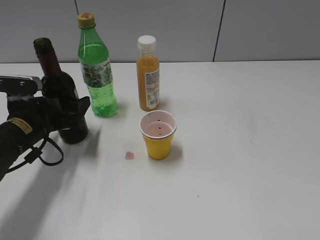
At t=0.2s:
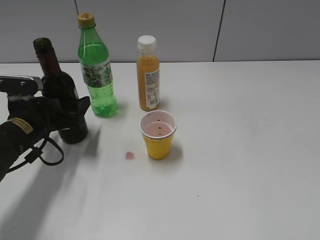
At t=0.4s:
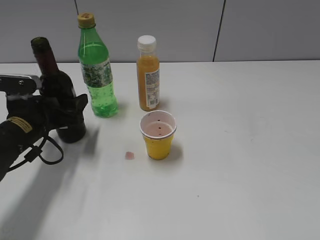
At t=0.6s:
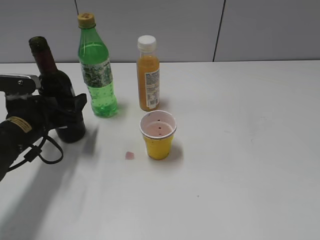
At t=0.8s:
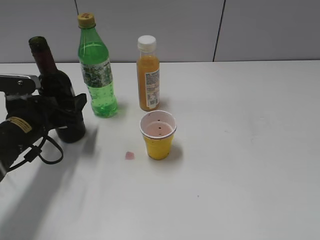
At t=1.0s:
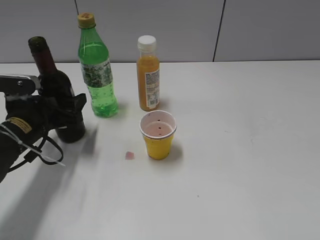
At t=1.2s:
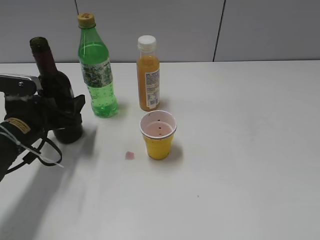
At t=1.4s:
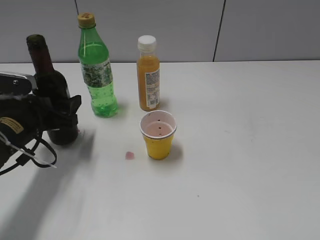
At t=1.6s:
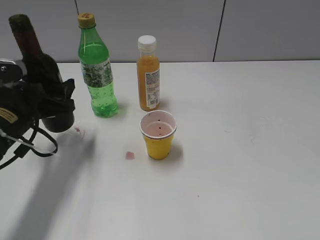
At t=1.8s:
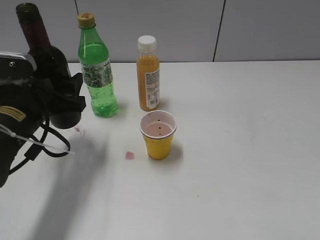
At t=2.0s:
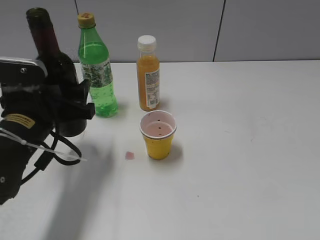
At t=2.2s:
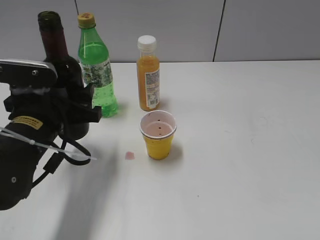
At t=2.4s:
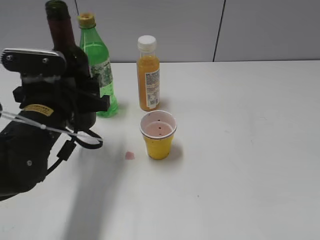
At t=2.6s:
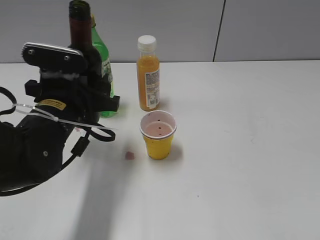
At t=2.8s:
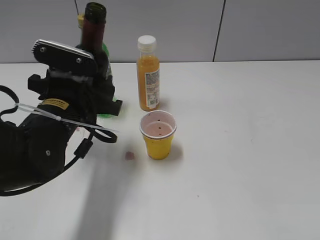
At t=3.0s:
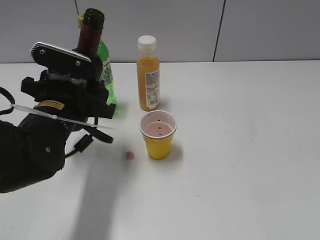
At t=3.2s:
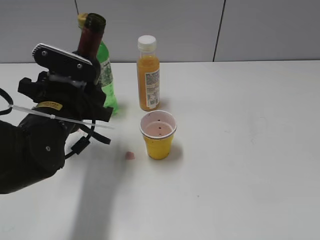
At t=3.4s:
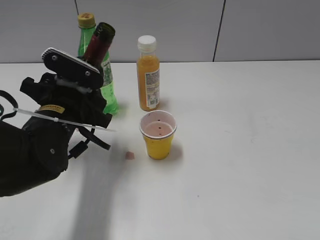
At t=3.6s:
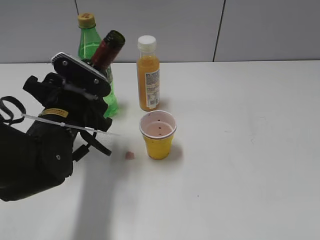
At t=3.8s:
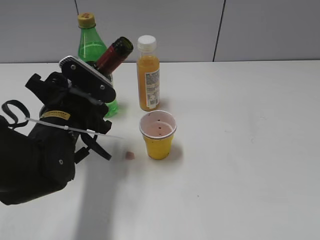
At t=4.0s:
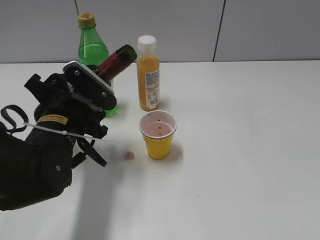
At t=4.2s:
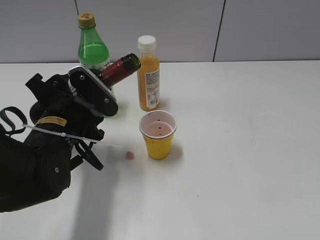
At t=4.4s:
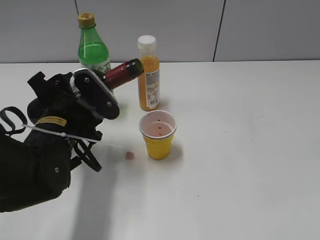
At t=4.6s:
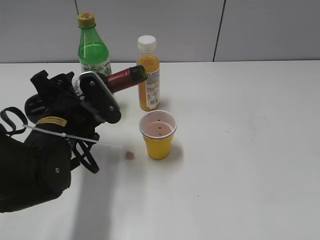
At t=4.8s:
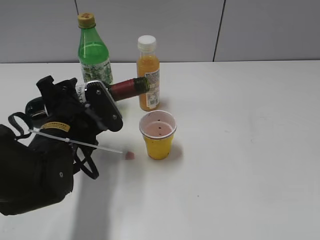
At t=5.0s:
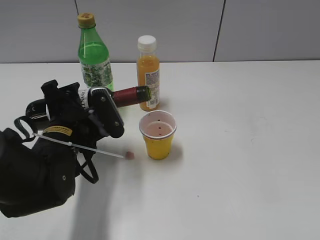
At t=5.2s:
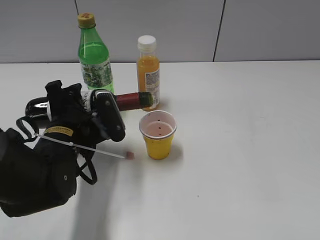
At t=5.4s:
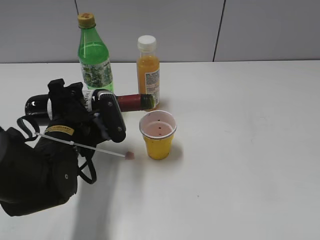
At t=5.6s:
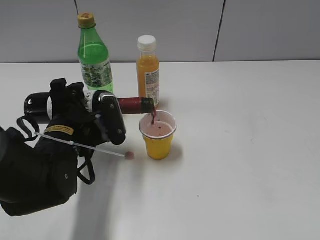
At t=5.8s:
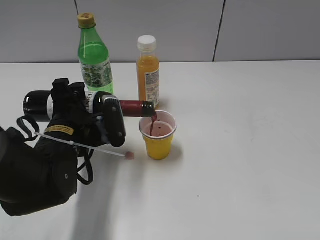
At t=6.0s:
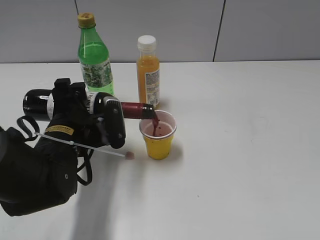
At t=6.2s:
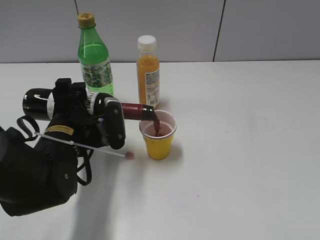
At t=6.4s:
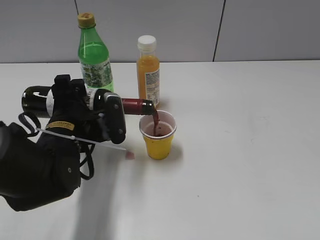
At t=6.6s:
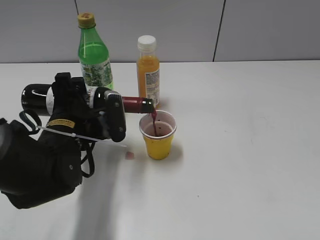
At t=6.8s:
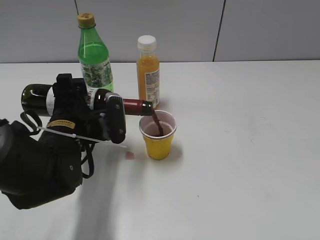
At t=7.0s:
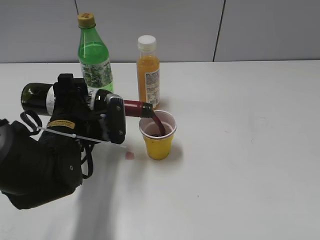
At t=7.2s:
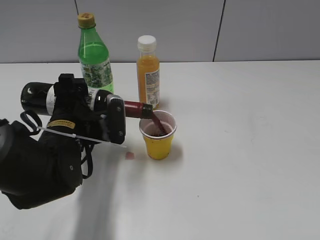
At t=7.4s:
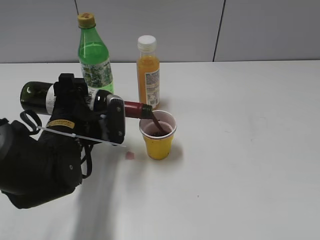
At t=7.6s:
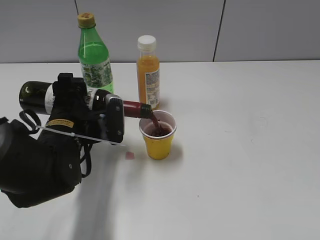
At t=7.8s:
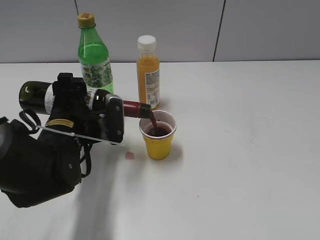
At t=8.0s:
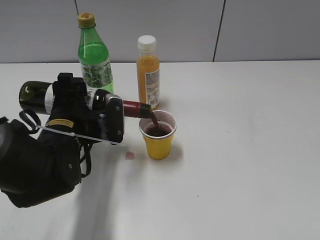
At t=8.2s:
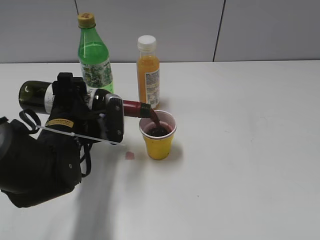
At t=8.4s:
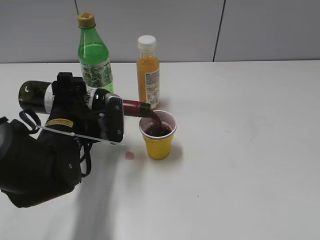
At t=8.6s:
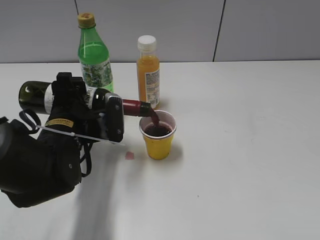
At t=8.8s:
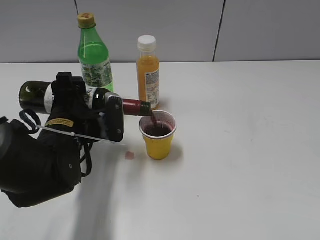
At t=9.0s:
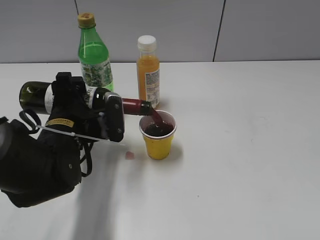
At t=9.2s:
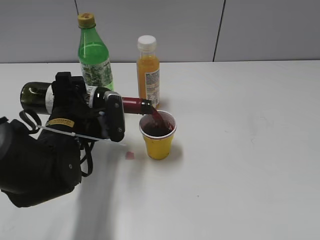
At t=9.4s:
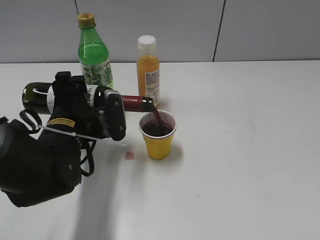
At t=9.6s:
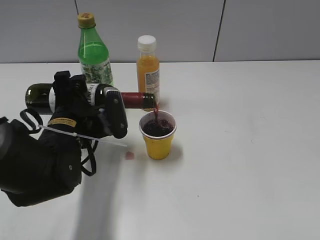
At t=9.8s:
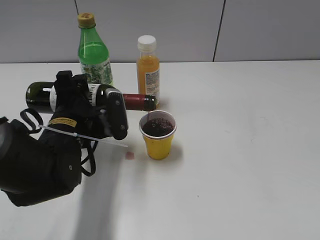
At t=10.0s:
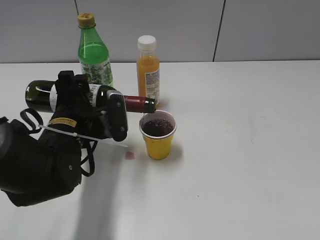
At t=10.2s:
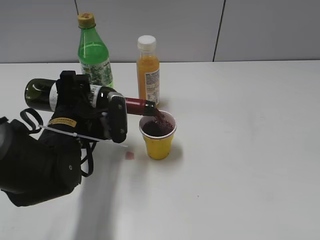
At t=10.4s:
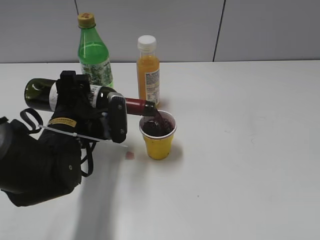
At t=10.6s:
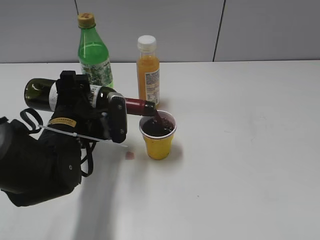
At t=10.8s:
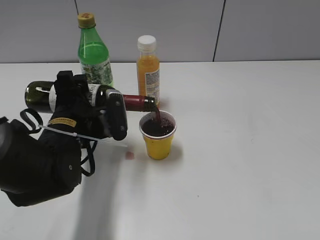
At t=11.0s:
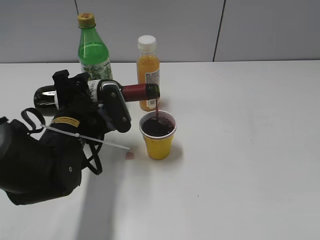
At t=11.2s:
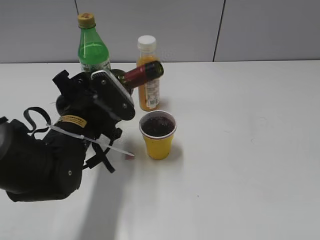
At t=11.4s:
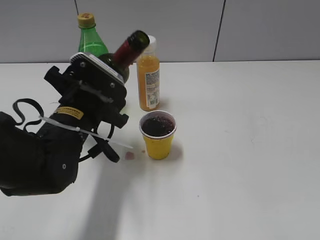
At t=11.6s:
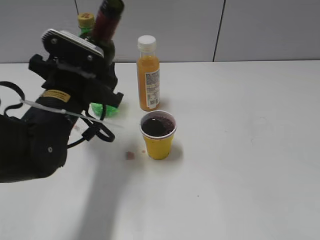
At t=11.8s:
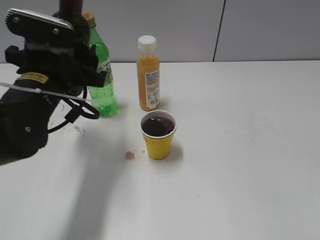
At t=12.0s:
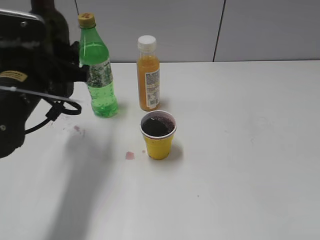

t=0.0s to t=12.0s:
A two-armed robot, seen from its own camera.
Step, t=1.0s to t=11.0s: Pour the red wine from bottle to cup with left gripper.
t=0.0s to t=1.6s: The left gripper changes place by roughly 5 cm, and closes.
t=1.6s to t=3.0s: The left gripper heads to the right, covering roughly 10 cm.
t=6.0s to t=7.6s: The grippers stay close to where they were, moving slightly.
t=7.6s to t=9.0s: Neither gripper changes place.
t=9.0s to t=10.4s: There are only small adjustments of the grippers.
t=10.4s to t=12.0s: The left gripper heads upward, covering approximately 5 cm.

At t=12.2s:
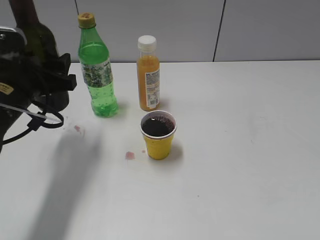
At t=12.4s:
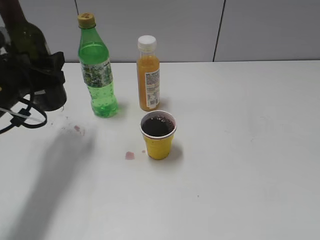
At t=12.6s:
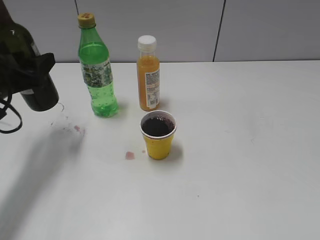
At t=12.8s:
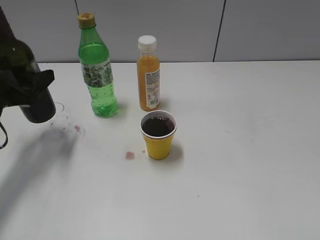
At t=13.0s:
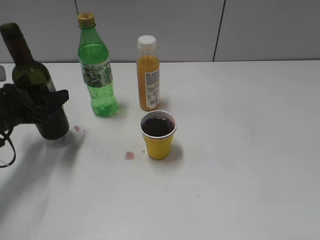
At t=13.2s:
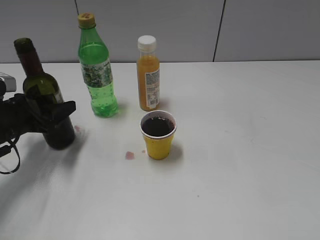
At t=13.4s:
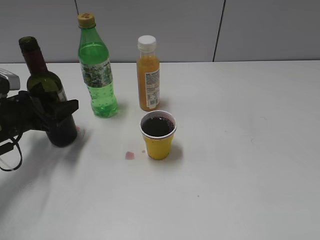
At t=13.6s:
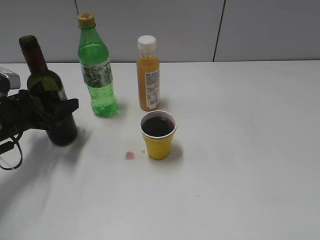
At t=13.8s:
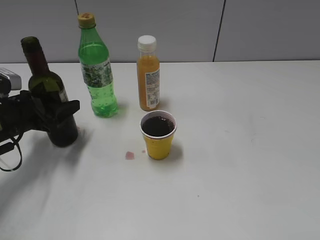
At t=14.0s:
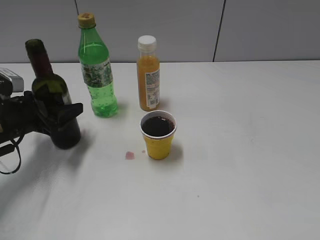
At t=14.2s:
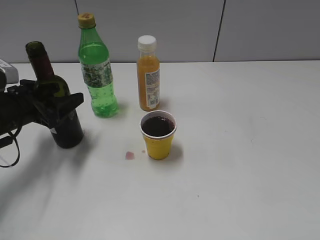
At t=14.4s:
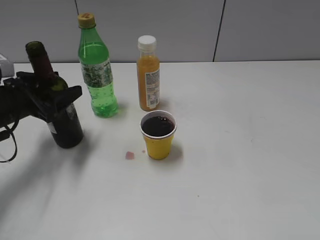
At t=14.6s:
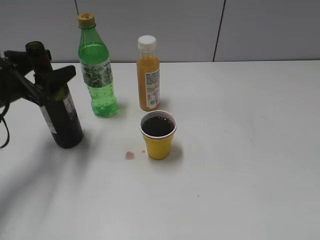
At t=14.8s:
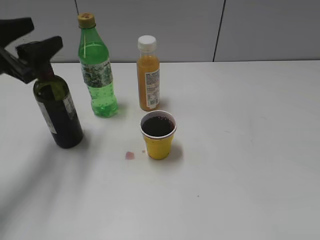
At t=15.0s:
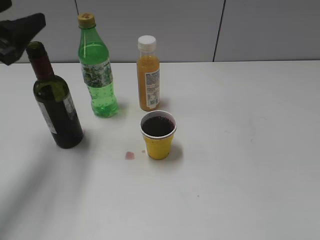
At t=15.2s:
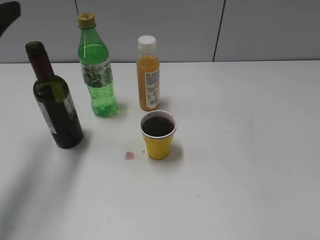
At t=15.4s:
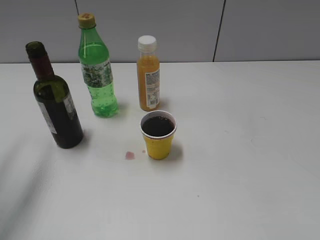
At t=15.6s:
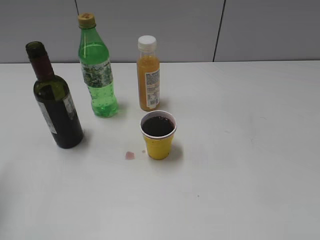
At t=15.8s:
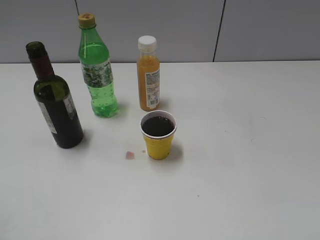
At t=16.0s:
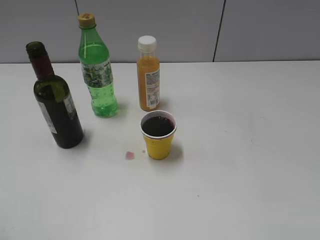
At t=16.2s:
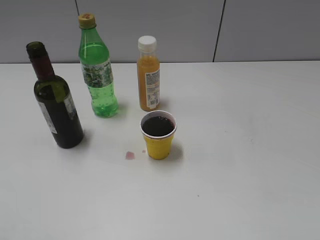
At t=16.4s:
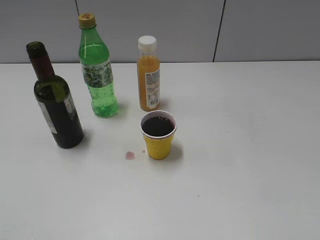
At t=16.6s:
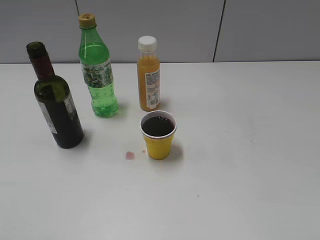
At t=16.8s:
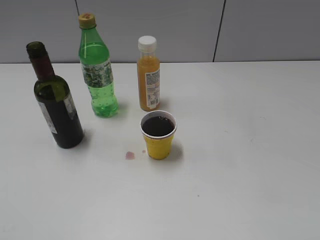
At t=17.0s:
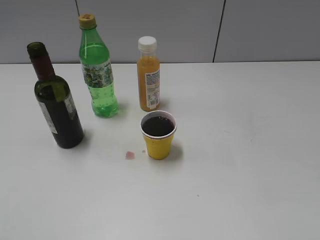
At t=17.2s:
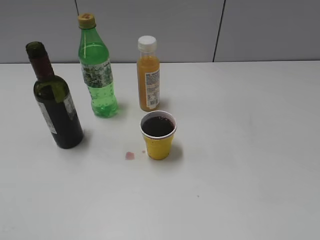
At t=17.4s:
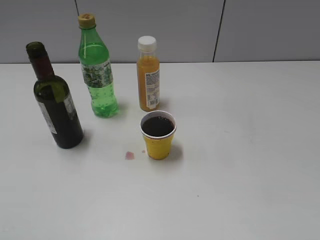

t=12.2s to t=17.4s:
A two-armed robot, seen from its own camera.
Step, t=12.2s to t=14.6s: Place the red wine bottle on the table with left gripper.
t=12.2s to t=14.0s: The left gripper travels downward and to the left by approximately 10 cm.
t=14.0s to t=15.6s: The left gripper heads upward and backward, covering roughly 25 cm, and opens, then closes once more.

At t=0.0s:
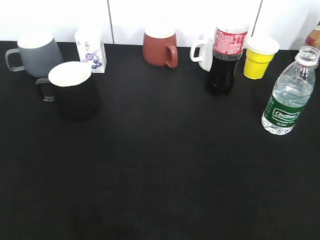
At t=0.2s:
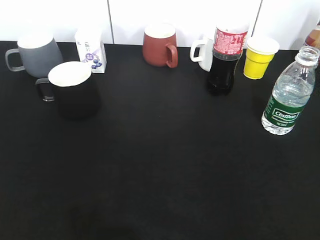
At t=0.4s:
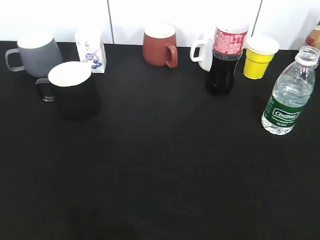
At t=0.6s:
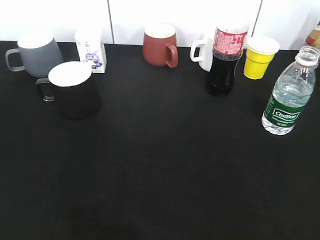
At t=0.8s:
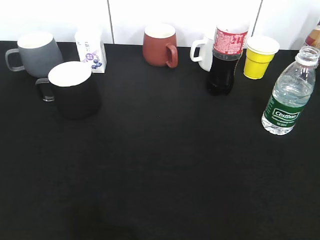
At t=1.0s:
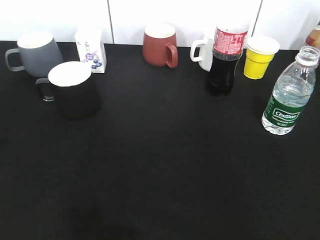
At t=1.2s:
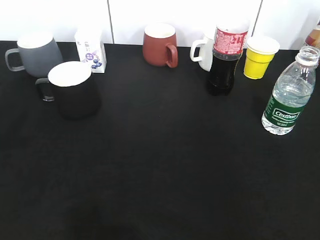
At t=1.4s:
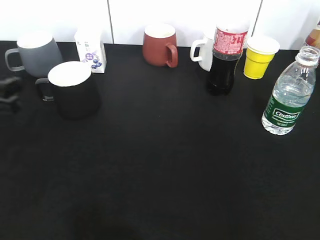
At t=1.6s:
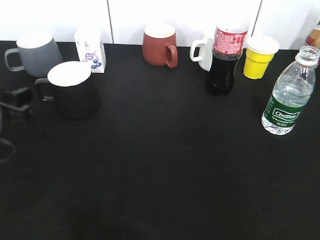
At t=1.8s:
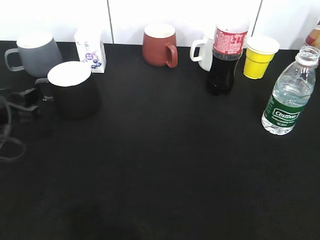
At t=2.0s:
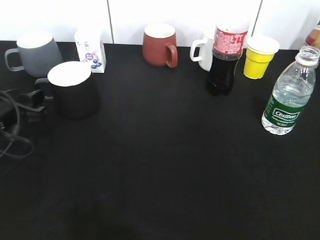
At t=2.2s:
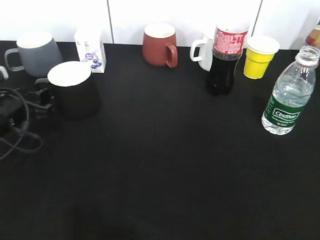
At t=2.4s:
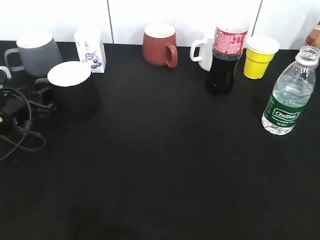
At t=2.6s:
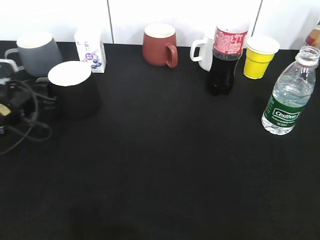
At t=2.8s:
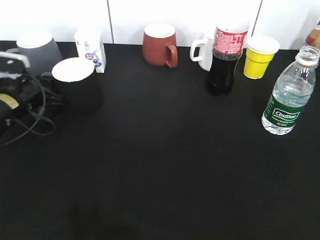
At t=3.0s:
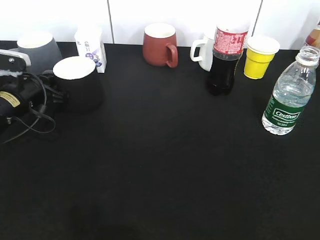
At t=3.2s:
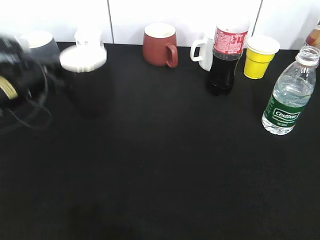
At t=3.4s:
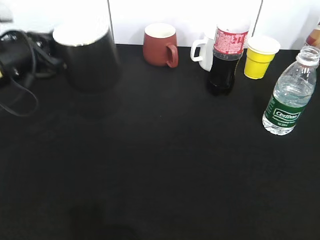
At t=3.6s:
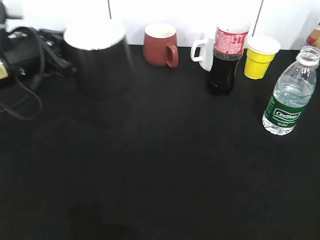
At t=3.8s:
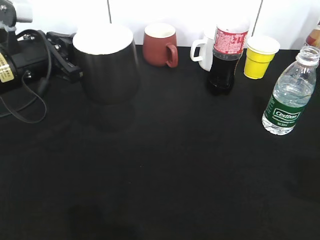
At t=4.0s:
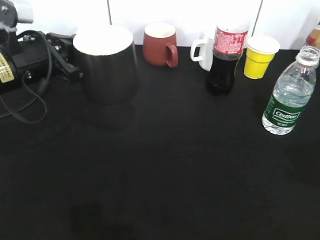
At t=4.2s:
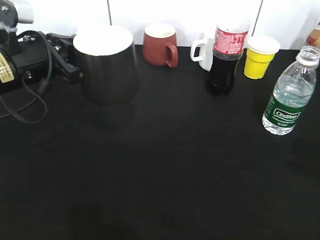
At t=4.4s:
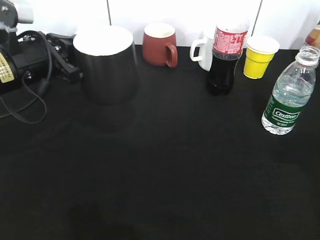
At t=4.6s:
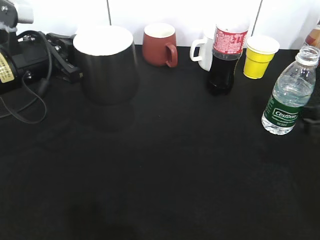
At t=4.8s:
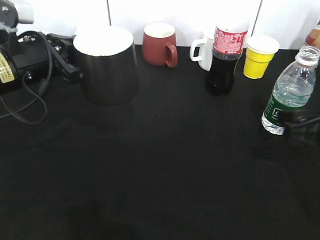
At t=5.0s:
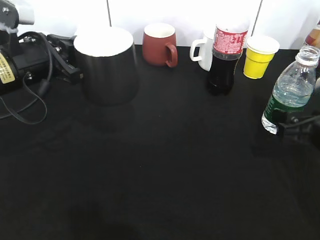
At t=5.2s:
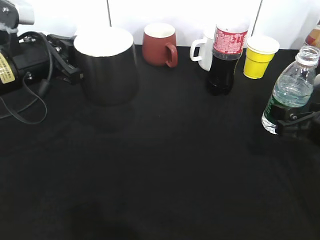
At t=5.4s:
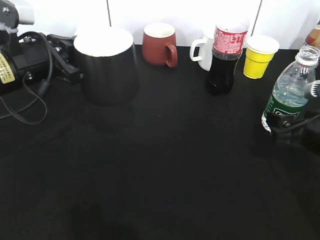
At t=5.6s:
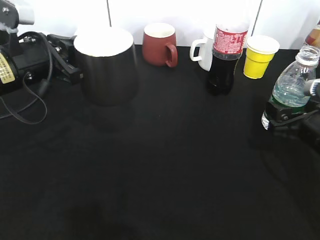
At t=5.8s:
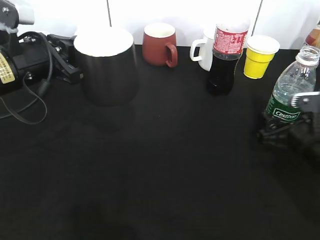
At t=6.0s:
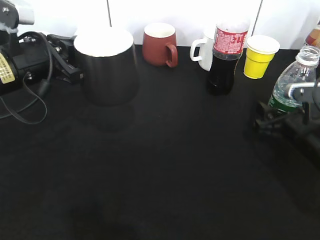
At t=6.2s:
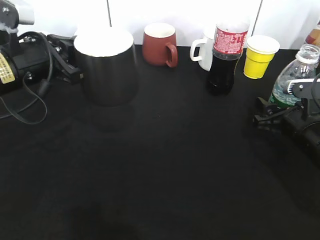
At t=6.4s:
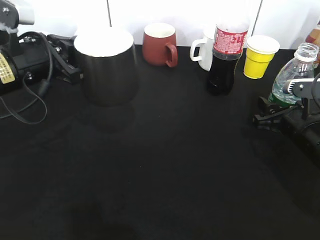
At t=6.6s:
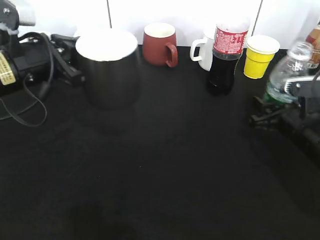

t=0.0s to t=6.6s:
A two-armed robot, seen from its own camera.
Step, t=0.0s to t=2.8s: Grasp the black cup with left gripper.
Step, t=3.2s to t=3.6s: Lift the black cup with left gripper.
Step, t=3.8s to t=6.4s: Grasp the bottle with water with right gripper.
t=0.0s to t=1.6s: The left gripper goes roughly 25 cm forward and downward, and opens.
t=1.6s to t=3.2s: The left gripper goes roughly 10 cm forward, and closes.
t=3.2s to t=5.0s: The left gripper shifts some 5 cm upward, while the right gripper moves forward and downward, some 25 cm, and opens.
t=5.0s to t=6.6s: The right gripper goes some 5 cm forward, and closes up.
